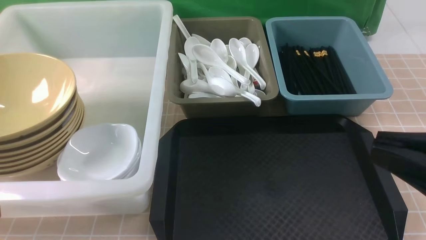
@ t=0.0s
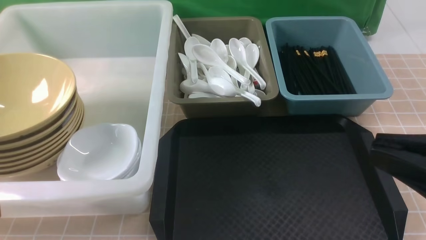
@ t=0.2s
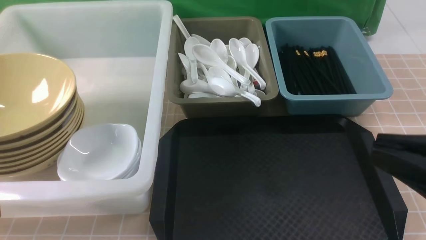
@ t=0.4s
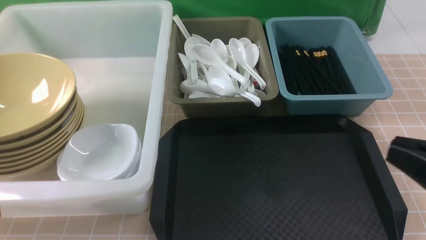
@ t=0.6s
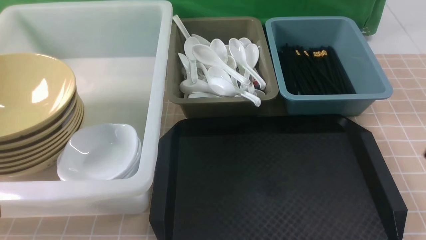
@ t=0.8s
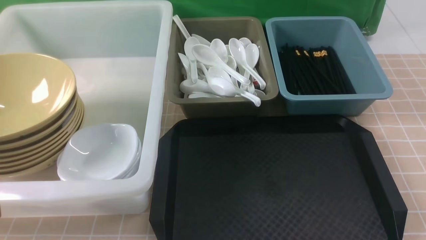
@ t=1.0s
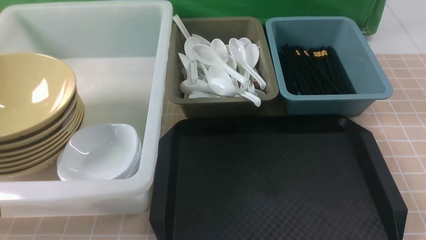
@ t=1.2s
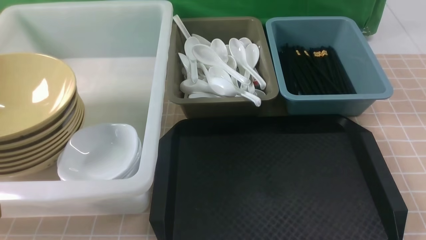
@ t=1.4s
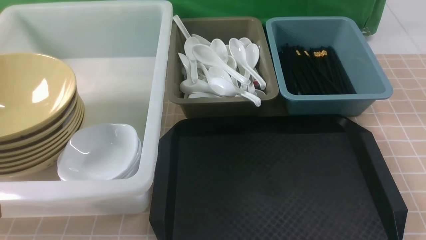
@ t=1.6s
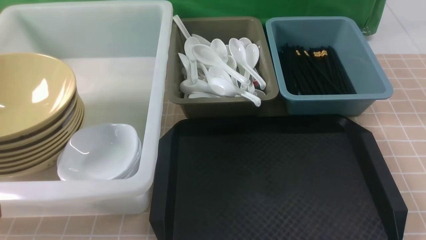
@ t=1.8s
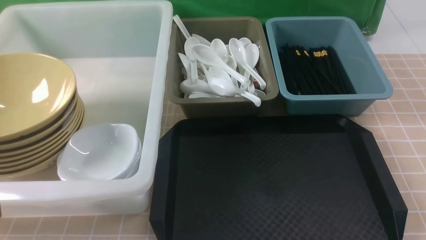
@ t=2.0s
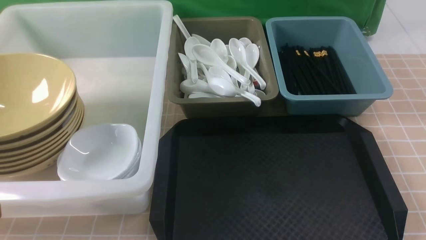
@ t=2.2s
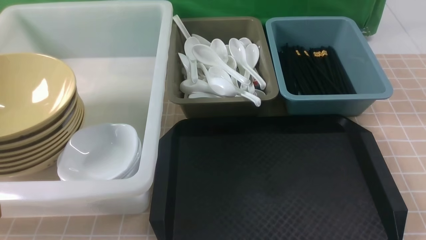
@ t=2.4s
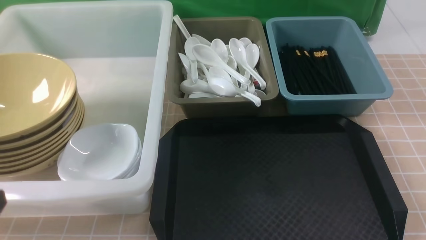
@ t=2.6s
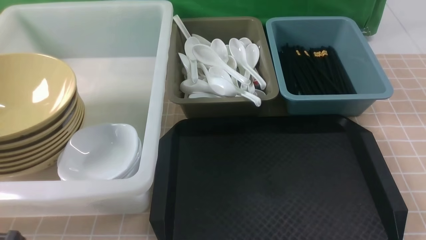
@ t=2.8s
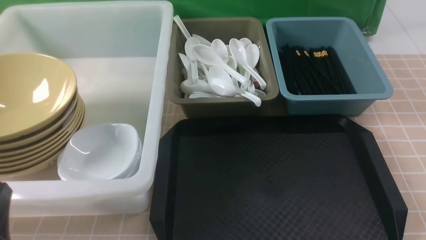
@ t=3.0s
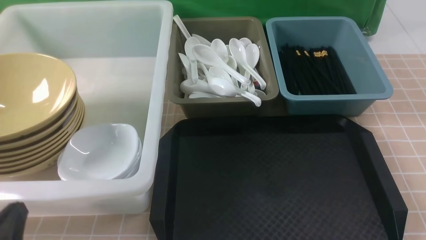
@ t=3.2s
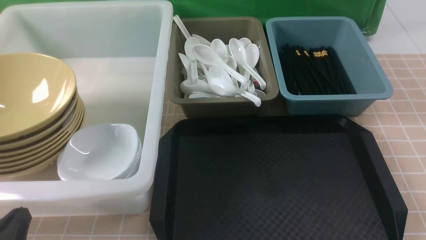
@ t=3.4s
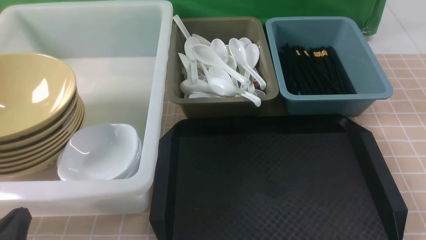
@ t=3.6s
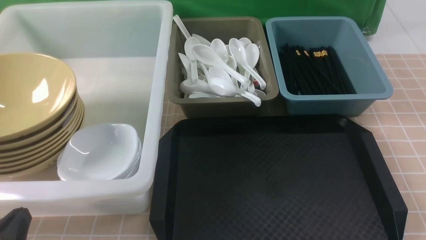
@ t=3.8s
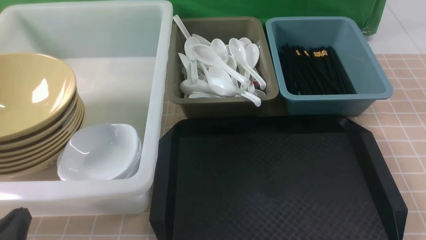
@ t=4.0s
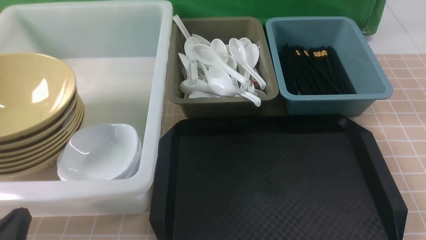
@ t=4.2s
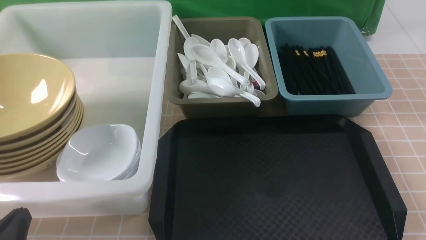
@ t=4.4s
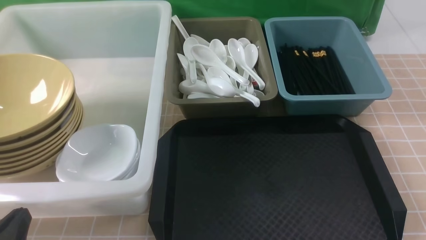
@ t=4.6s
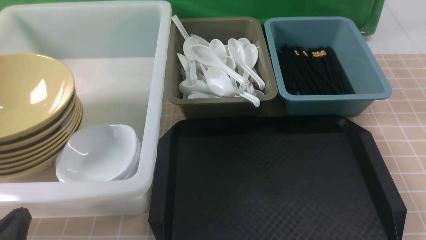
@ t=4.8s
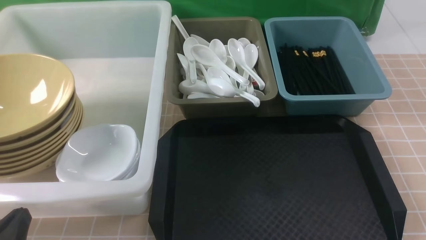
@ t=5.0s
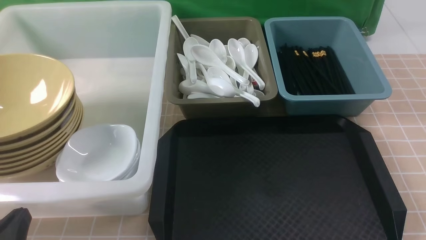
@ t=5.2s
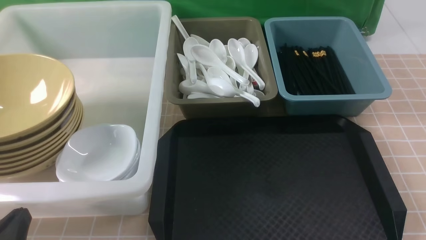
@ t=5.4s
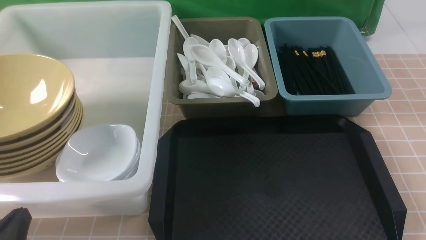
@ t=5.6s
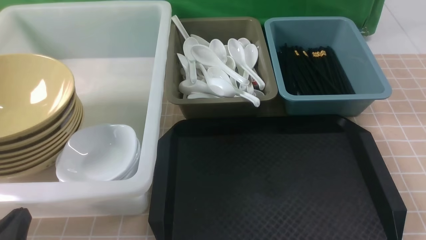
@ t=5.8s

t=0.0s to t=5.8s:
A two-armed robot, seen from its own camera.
Task of the whole recording: on brown table put chopsticks spoon bowls plates into blue grey white boxes.
t=0.0s to t=1.4s: The right gripper heads downward and to the right, covering roughly 20 cm.
t=2.8s to t=4.4s: The left gripper shifts approximately 5 cm downward.
t=4.4s to t=5.8s: Both grippers stay put.
